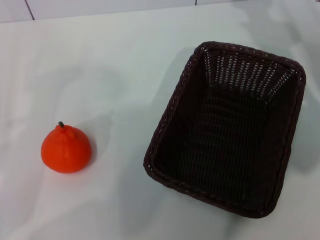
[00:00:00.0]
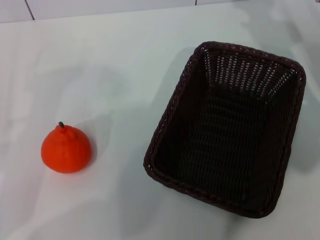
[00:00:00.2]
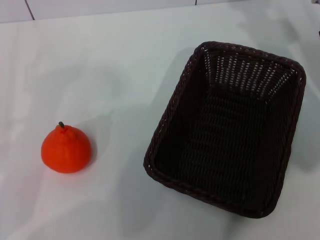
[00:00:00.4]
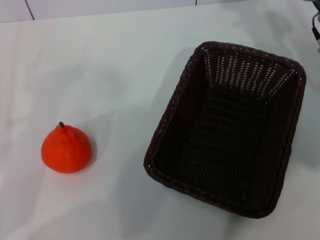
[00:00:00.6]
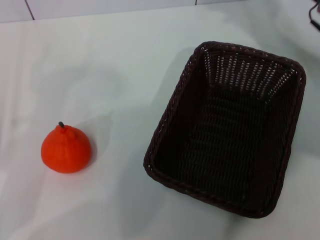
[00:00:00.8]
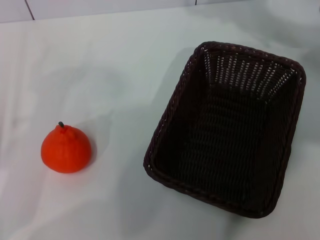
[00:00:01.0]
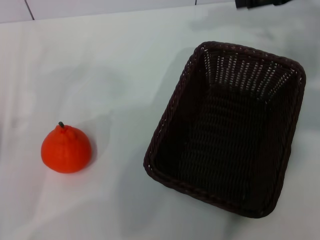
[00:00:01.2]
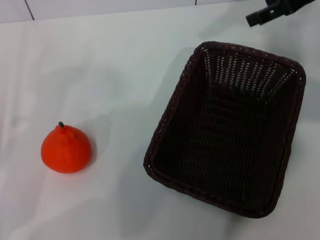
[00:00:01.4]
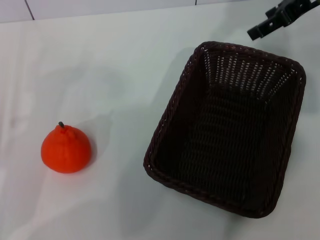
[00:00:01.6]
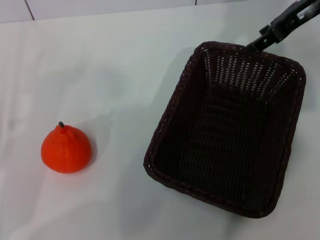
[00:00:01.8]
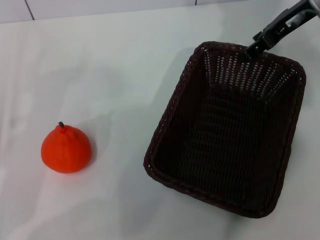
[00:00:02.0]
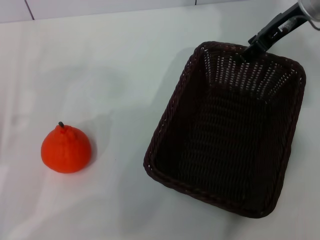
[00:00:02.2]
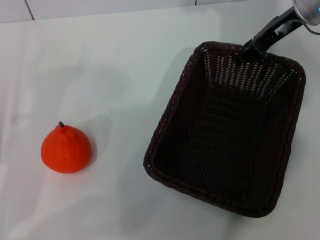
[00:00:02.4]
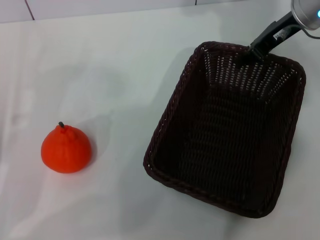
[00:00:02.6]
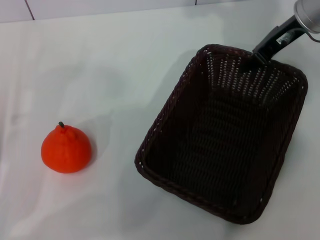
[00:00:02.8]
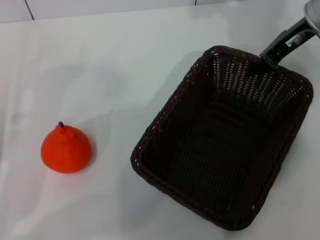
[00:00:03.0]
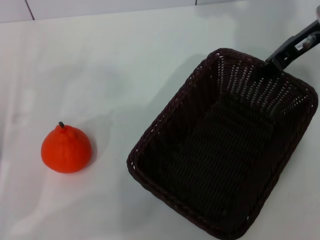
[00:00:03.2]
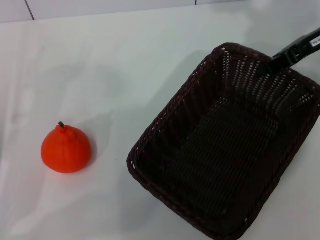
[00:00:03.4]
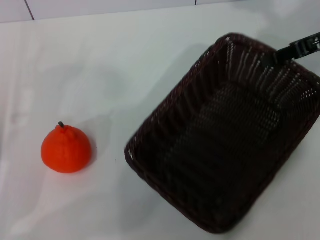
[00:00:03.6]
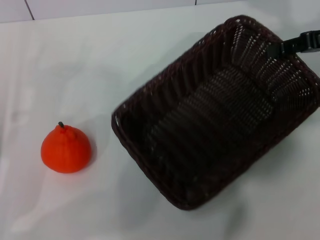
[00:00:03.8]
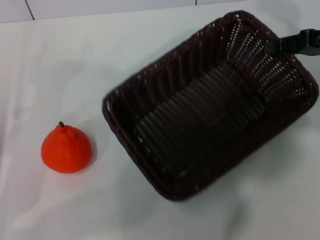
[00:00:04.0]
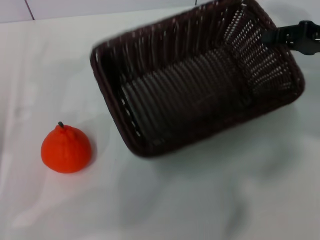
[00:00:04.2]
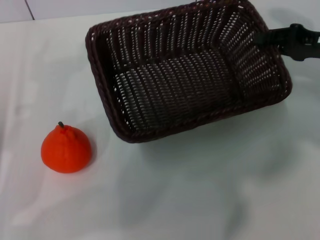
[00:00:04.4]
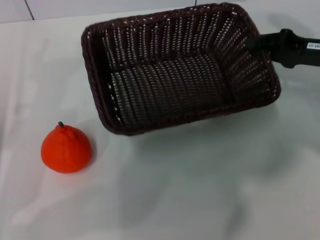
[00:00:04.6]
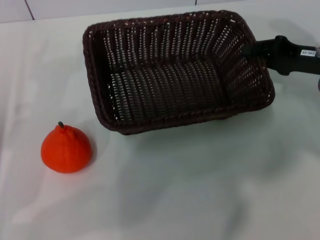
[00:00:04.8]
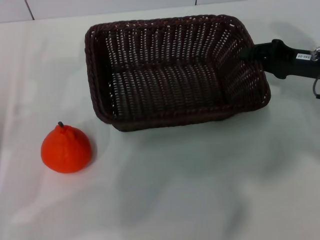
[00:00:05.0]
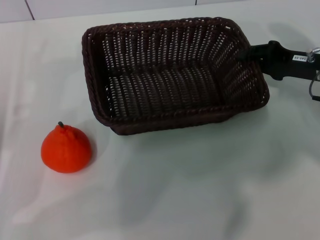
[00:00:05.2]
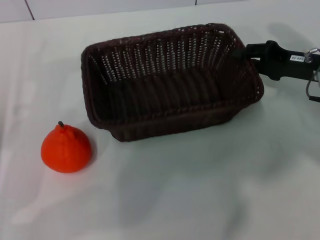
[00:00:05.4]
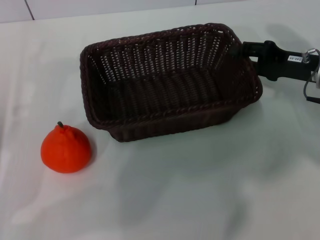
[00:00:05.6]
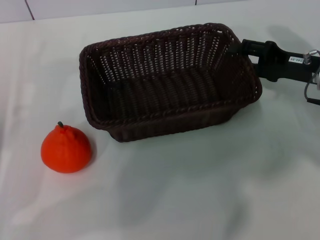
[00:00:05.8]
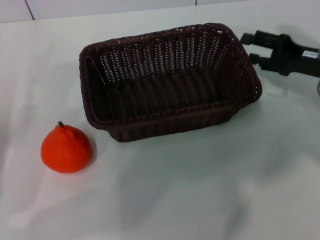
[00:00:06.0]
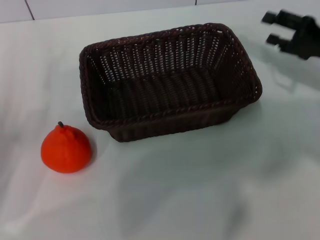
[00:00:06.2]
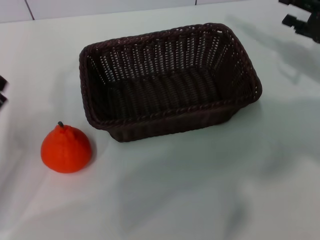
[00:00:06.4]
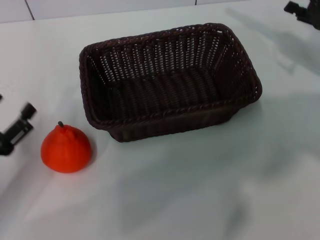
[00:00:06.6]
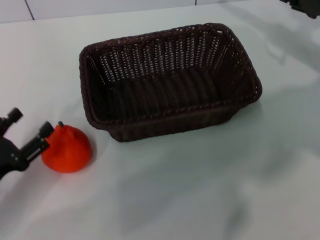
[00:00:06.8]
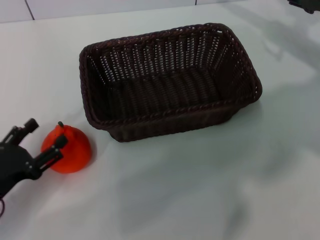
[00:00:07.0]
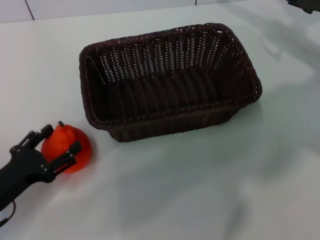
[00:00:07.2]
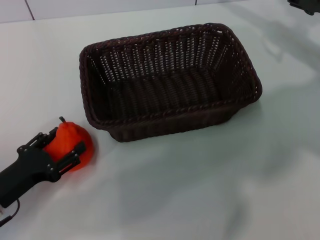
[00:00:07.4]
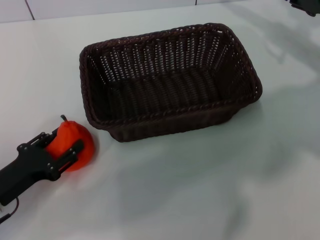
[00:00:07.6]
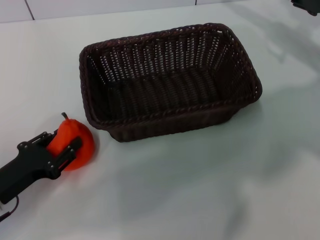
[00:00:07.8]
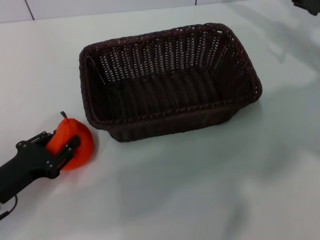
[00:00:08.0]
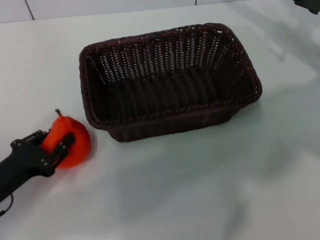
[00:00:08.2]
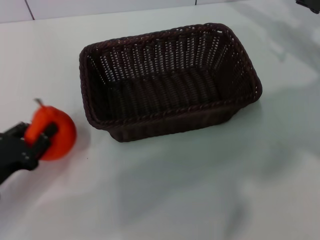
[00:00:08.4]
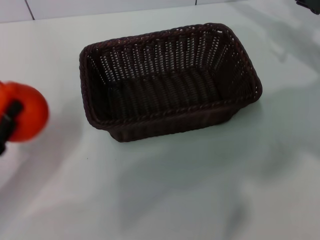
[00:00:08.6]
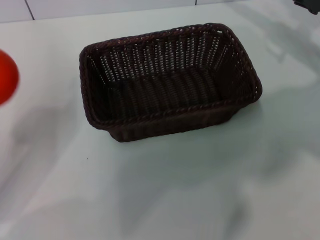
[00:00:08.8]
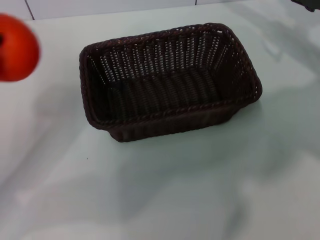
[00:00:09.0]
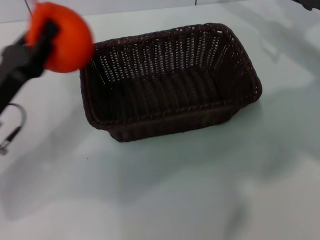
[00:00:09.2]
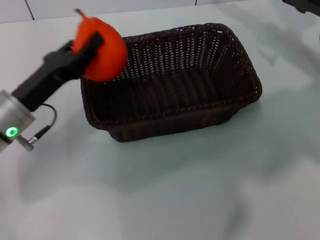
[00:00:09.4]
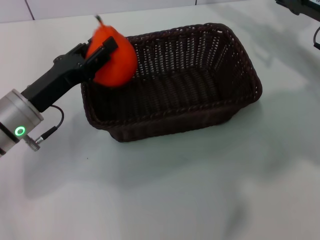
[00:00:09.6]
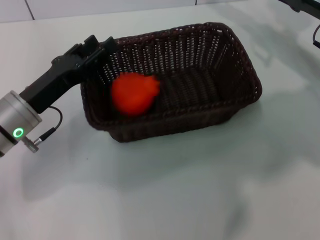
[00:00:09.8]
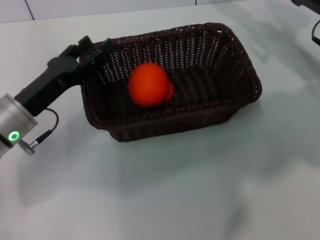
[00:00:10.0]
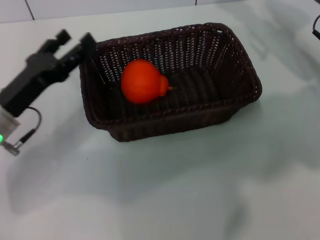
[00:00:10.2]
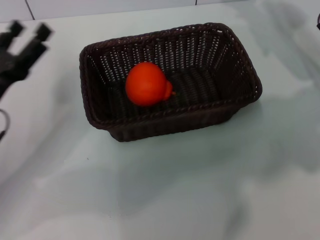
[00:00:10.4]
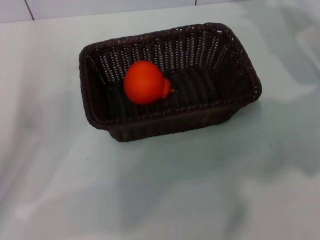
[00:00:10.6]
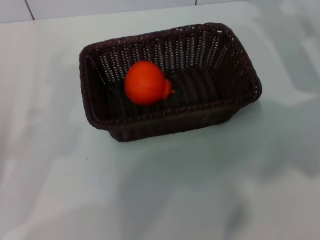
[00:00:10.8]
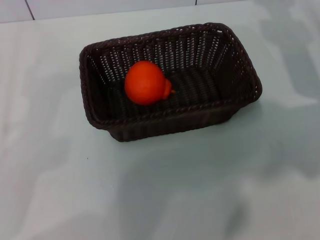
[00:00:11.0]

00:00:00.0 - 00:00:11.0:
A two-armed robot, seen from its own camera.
Task of the whole recording: the right gripper pick up the black basket and place it horizontally in the middle of the table, the left gripper pick up the orange and place it into the black basket.
Step, 00:00:00.0 - 00:00:03.4: Pick up the dark basket with the right gripper.
Step, 00:00:03.6 - 00:00:06.2: Place the dark basket in the center of view with the right gripper.
Step, 00:00:06.4 - 00:00:08.4: Pick up the orange with the left gripper.
Step, 00:00:08.6 - 00:00:09.8: Place the orange into the dark basket with the left gripper.
00:00:00.0 - 00:00:01.6: The right gripper shifts roughly 15 cm upward.
00:00:01.6 - 00:00:03.2: The right gripper travels downward by about 5 cm, and closes its fingers.
00:00:03.2 - 00:00:04.8: The right gripper goes approximately 10 cm downward and backward.
00:00:04.8 - 00:00:06.2: The right gripper opens.
00:00:06.2 - 00:00:07.8: The left gripper ends up roughly 5 cm from where it was. The right gripper ends up roughly 5 cm from where it was.
00:00:07.8 - 00:00:09.4: The left gripper heads forward, upward and to the right, covering some 15 cm, and closes up.
00:00:09.4 - 00:00:11.0: The left gripper shifts roughly 15 cm backward and to the left, and opens its fingers.
